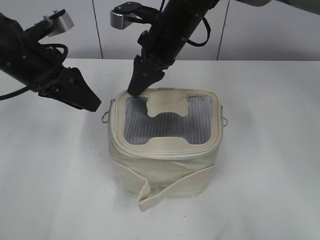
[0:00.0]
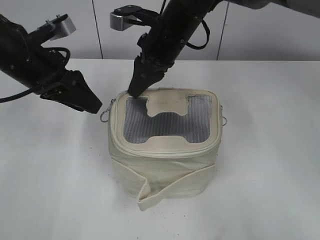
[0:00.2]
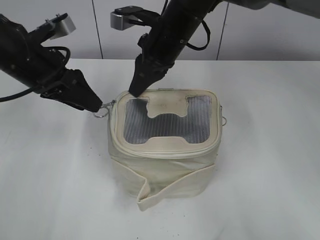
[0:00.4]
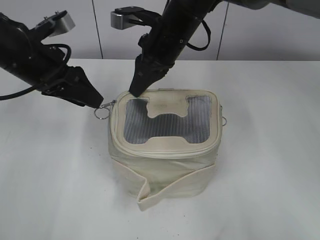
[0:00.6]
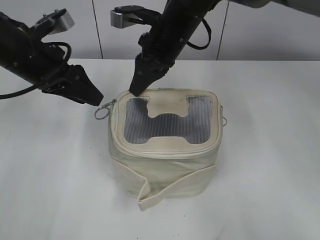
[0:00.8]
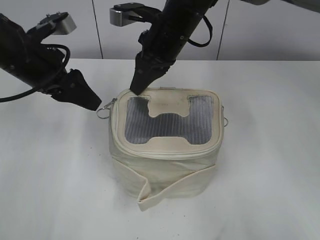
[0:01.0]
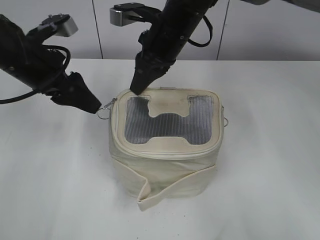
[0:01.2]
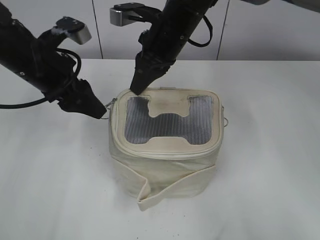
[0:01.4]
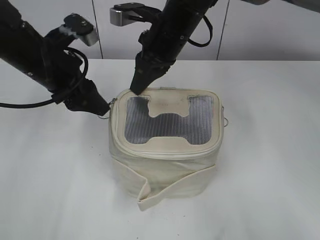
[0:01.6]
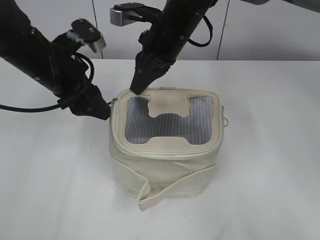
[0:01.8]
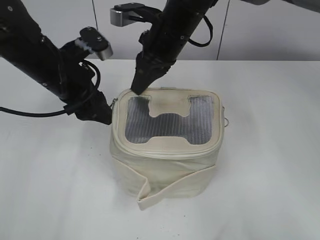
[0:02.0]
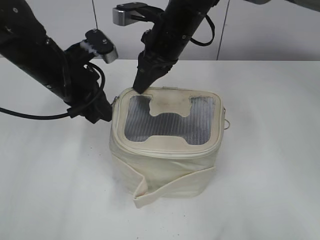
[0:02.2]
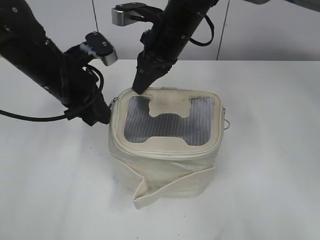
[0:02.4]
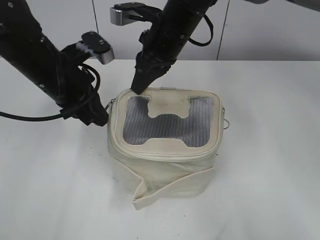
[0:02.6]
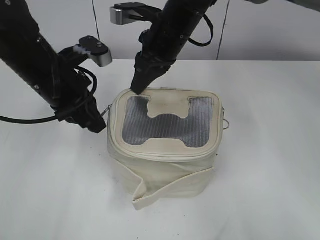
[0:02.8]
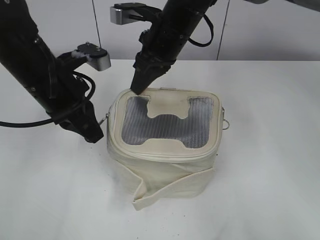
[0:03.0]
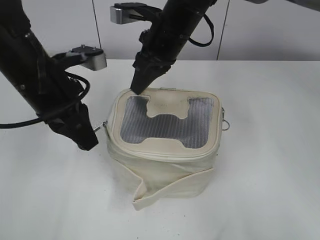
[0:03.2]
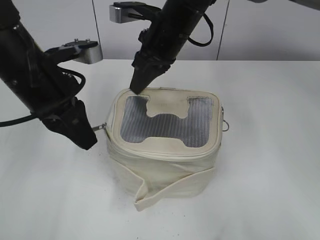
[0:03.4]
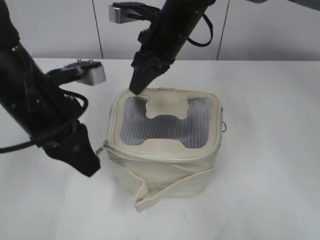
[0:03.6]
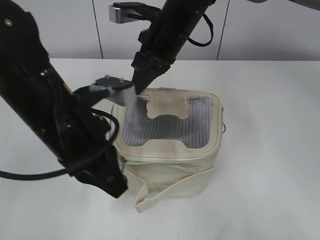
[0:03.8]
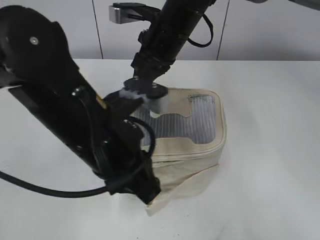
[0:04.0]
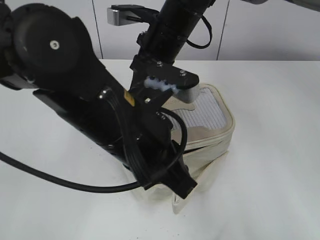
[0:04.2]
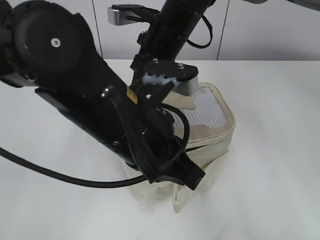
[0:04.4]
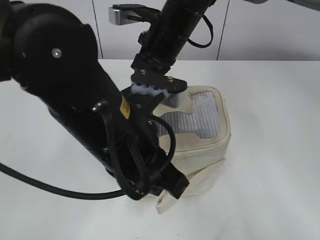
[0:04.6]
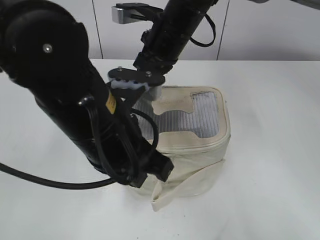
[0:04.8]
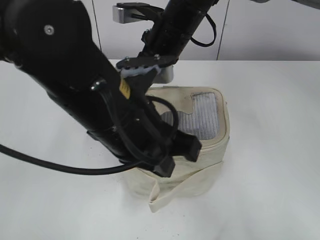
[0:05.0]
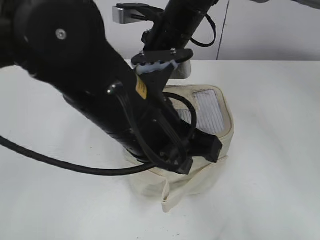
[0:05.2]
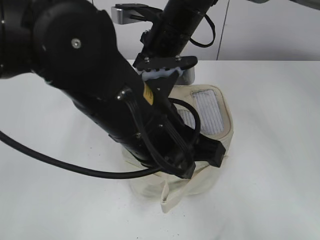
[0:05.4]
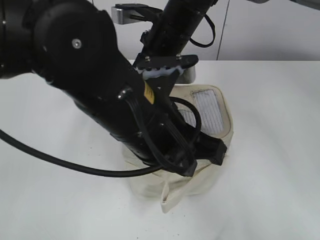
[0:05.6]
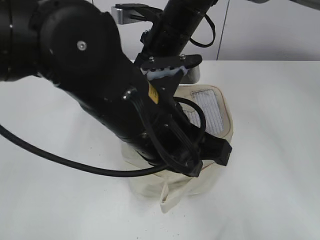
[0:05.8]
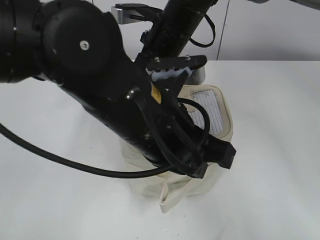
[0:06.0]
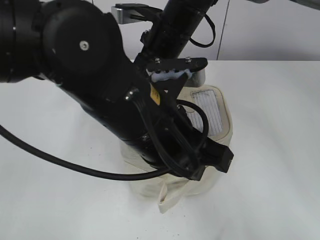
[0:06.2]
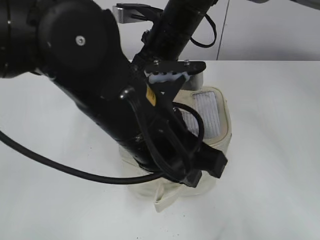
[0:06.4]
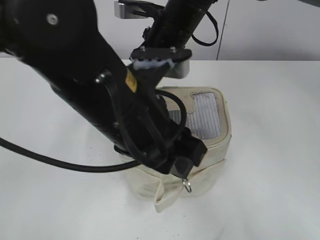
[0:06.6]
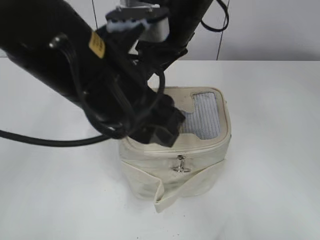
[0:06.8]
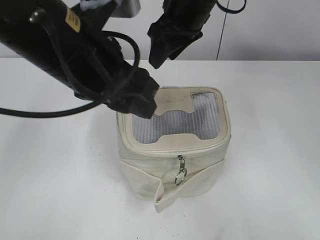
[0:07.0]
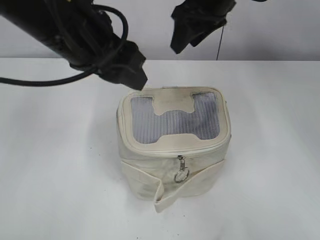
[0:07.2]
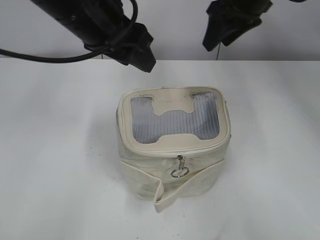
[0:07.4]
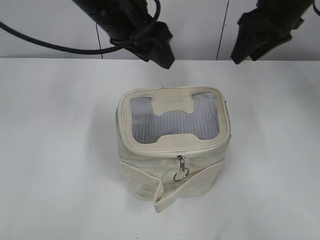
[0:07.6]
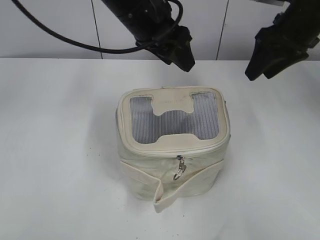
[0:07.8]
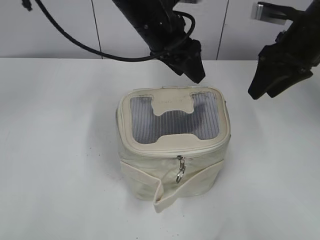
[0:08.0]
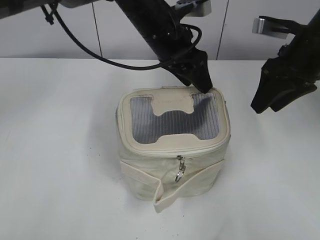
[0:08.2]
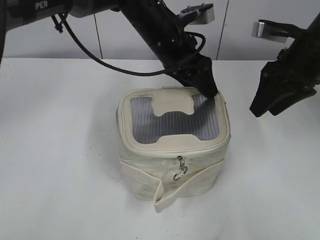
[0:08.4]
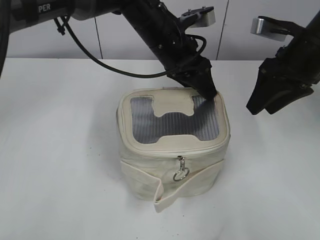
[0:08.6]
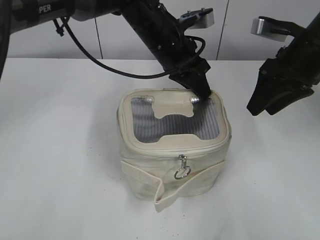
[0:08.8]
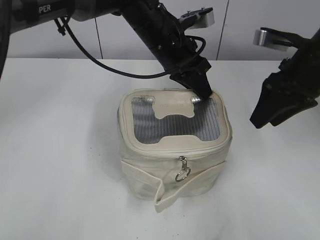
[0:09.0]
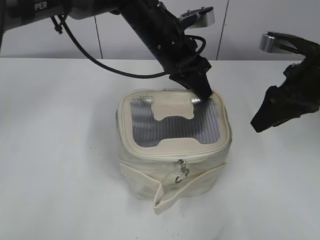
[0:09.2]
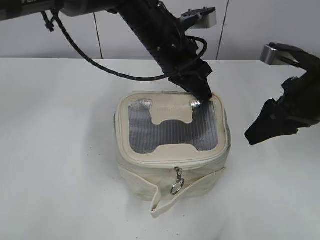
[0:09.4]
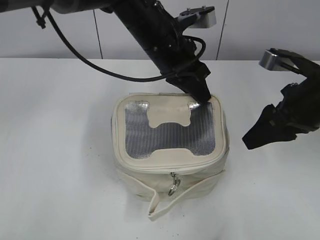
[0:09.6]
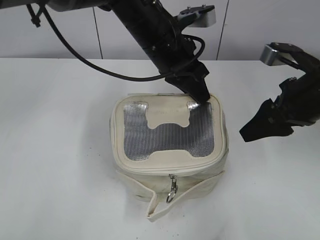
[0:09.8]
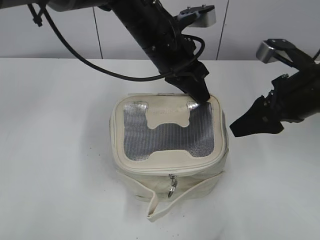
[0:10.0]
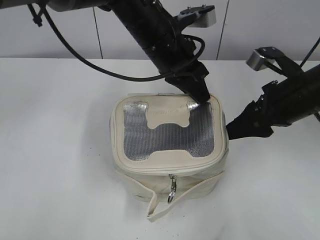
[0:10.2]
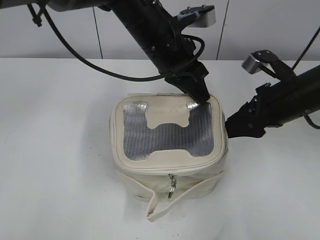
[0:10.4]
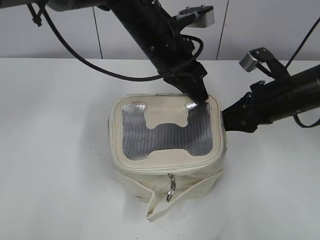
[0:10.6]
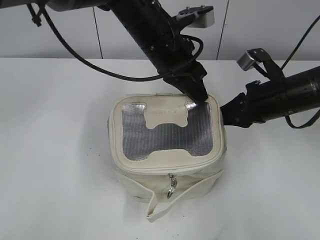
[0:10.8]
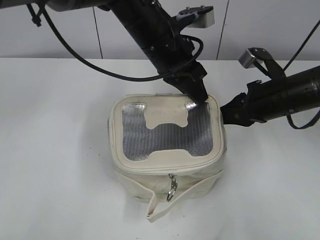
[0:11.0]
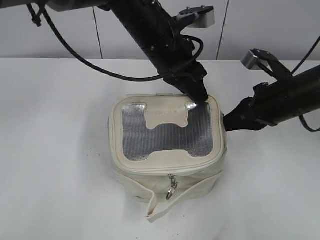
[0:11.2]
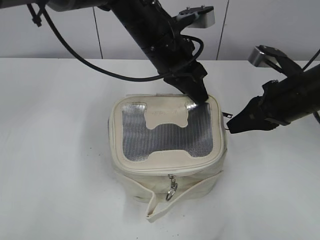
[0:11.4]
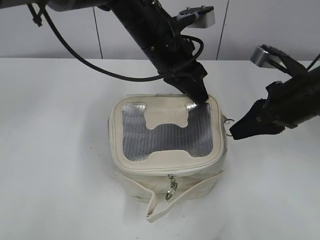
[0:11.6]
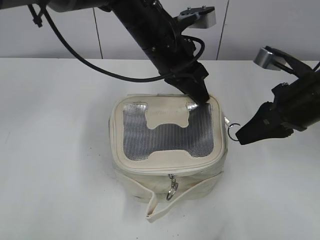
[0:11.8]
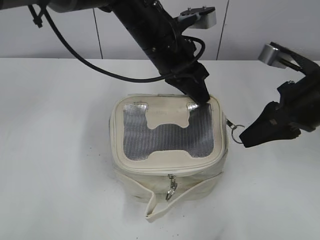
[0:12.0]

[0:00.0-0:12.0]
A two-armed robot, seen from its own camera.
Step, 0:00.0 to 0:06.2: Zip up the bag with your left hand.
0:00.0 to 0:01.6: The right gripper closes up.
0:01.6 to 0:03.0: The left gripper closes up.
0:03.0 to 0:04.4: The left gripper travels backward and to the right by about 15 cm.
0:06.0 to 0:07.6: The right gripper goes about 15 cm to the right, and opens its fingers. Meanwhile the left gripper heads forward and upward, covering roughly 15 cm, and opens its fingers.
0:07.6 to 0:09.0: The right gripper goes roughly 10 cm backward and downward, while the left gripper moves downward, to the right and forward, about 15 cm, and closes up.
0:09.0 to 0:10.4: The right gripper heads downward, covering about 5 cm.
0:10.4 to 0:12.0: The right gripper closes its fingers.

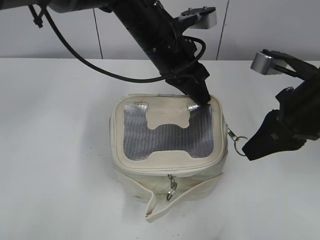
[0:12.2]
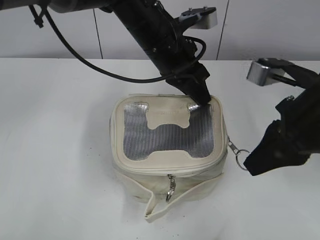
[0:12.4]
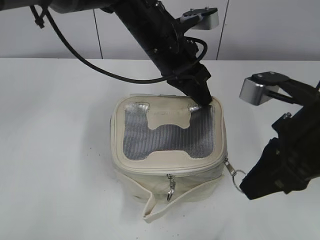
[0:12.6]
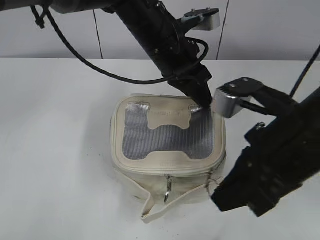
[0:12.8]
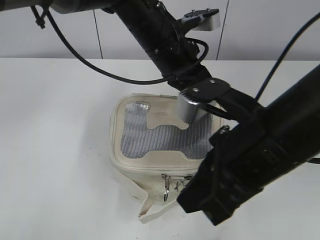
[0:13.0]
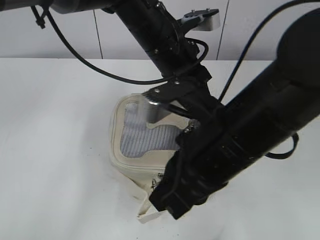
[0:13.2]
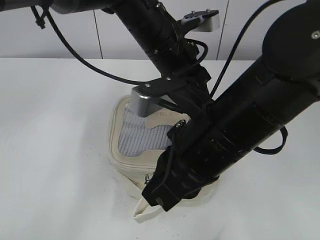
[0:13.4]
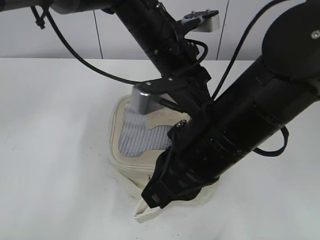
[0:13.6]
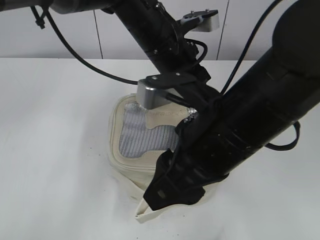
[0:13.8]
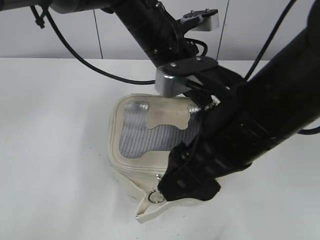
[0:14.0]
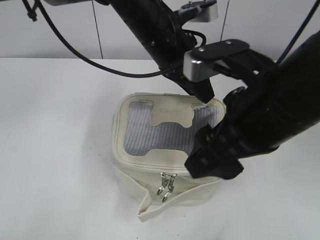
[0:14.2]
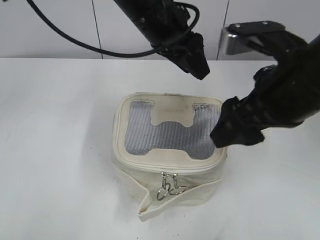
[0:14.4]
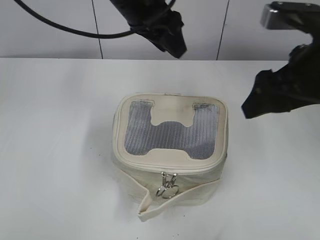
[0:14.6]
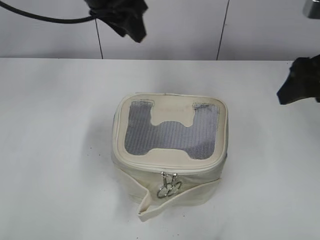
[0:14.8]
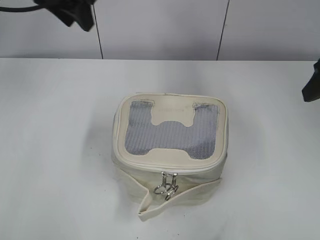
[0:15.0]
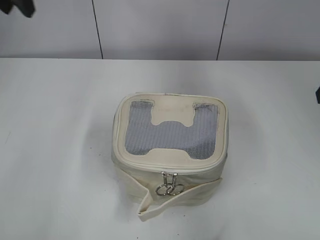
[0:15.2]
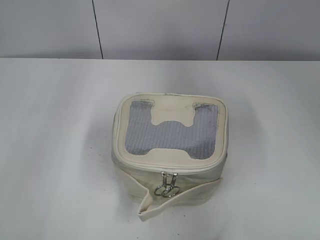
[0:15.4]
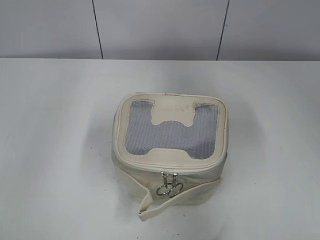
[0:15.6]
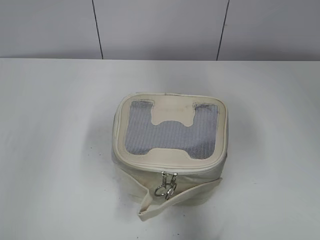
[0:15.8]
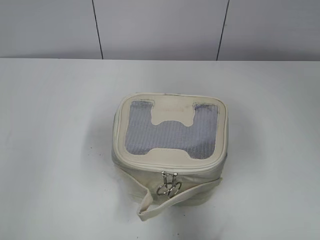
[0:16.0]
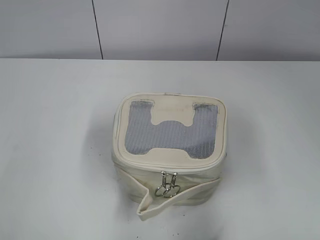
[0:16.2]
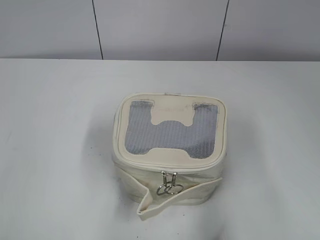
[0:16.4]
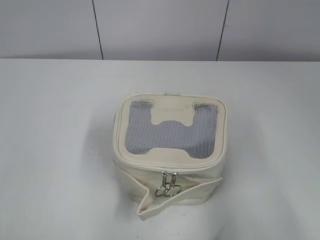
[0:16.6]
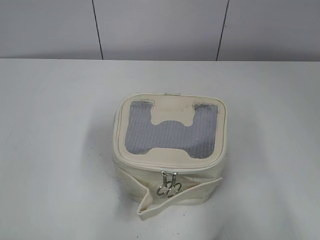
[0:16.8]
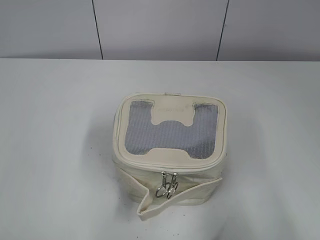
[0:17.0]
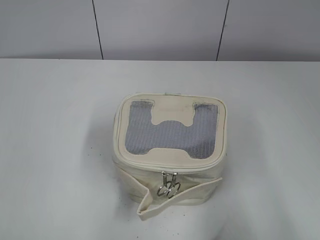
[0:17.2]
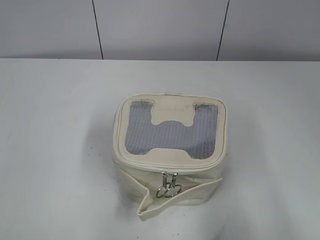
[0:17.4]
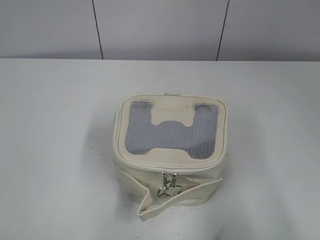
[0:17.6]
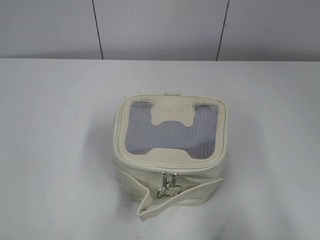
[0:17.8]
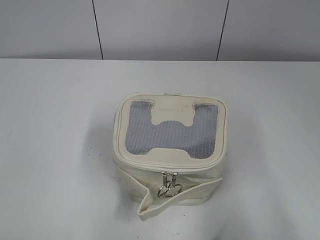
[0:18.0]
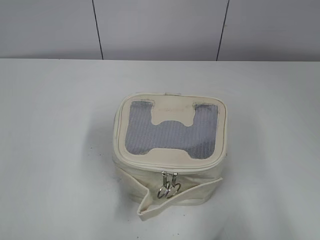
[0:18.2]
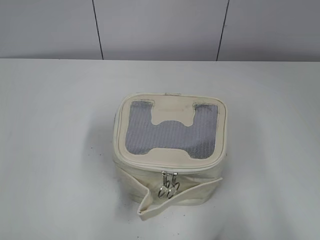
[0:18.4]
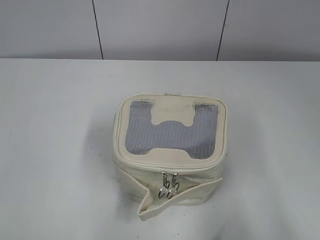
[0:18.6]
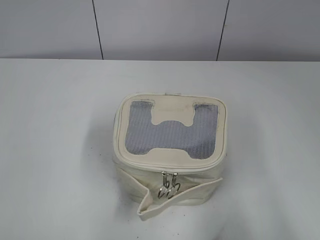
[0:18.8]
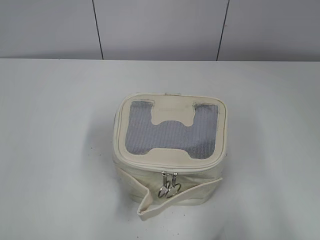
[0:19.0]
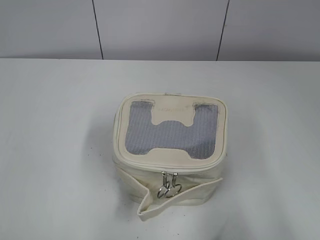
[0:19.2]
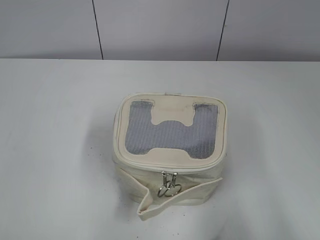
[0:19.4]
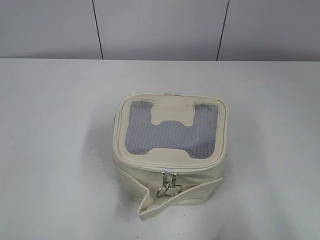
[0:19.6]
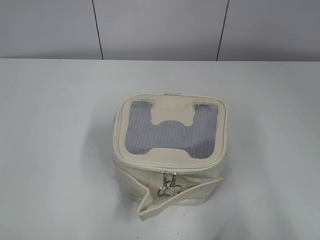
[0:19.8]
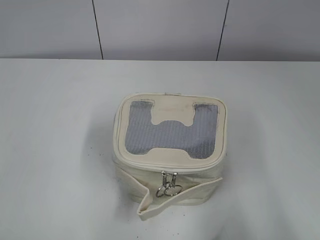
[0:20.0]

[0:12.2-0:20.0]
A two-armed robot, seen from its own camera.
Step, 0:14.0 to 0:14.2: Hold the bag with your left hand.
0:12.2 to 0:13.8: The right gripper goes roughly 15 cm to the left and backward, and opens its fingers.
0:13.8 to 0:15.4: The right gripper travels to the right by roughly 25 cm, and opens. Meanwhile the left gripper heads to the left and upward, covering roughly 35 cm, and opens.
0:15.4 to 0:16.8: The left gripper shifts some 35 cm backward; the right gripper moves backward, about 25 cm.
0:18.4 to 0:20.0: Neither gripper changes place.

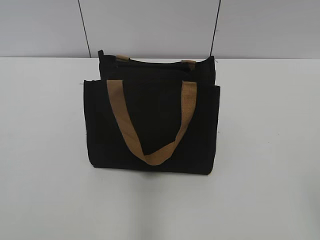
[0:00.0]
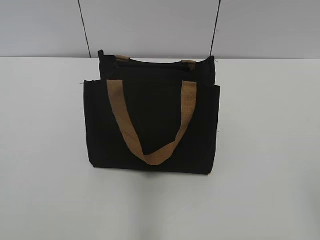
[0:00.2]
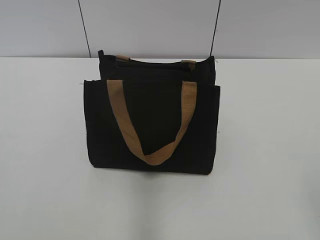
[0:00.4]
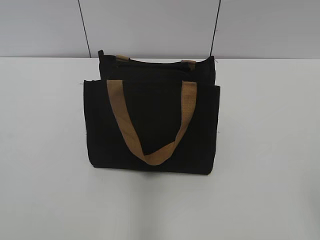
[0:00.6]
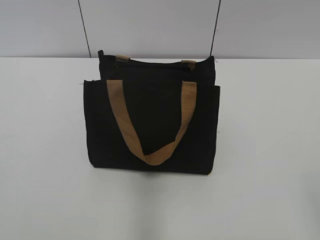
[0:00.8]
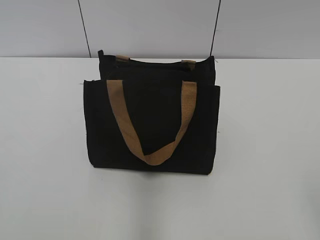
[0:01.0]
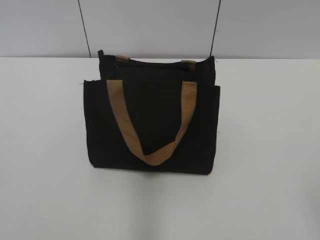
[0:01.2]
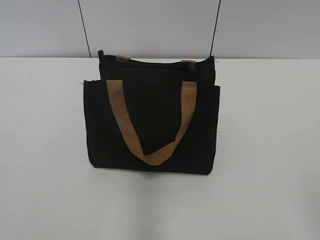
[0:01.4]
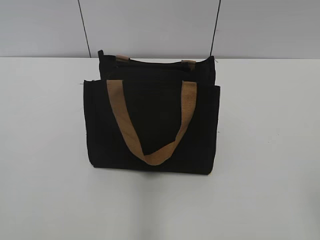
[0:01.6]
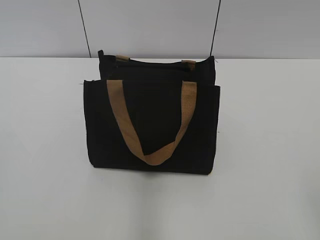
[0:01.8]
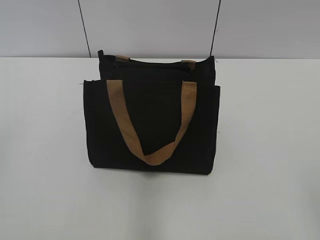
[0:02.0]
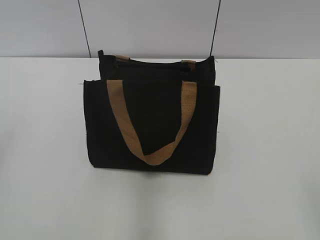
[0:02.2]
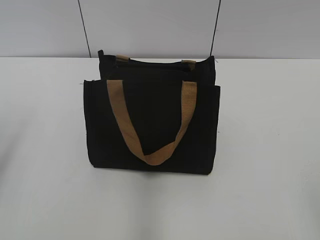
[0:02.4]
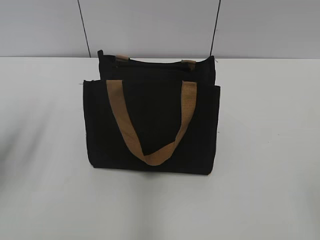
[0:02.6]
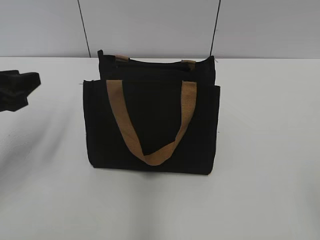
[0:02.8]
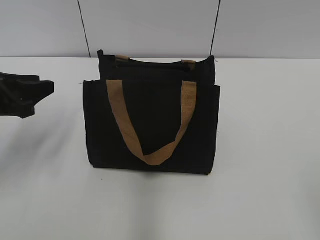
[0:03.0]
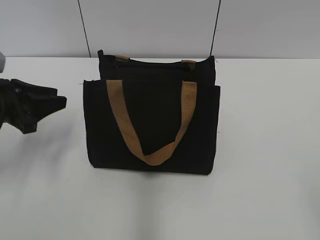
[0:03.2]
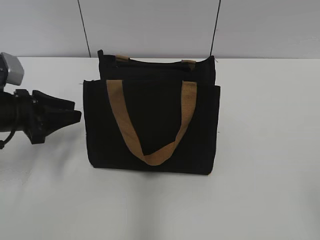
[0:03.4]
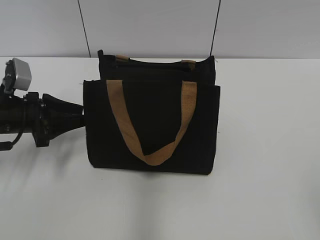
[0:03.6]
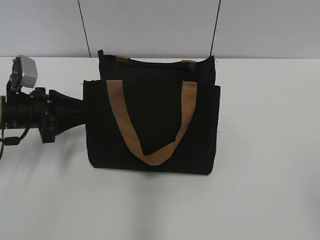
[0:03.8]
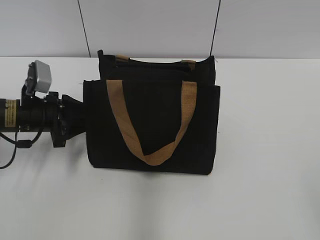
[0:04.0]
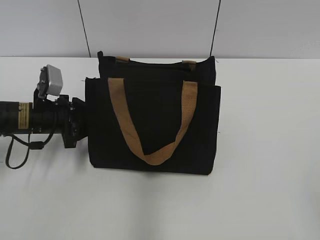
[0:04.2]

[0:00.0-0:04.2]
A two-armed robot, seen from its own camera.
0:01.4 to 0:02.8: The left gripper moves forward, about 25 cm.
0:02.8 to 0:04.2: The left gripper travels downward and forward by approximately 15 cm.
